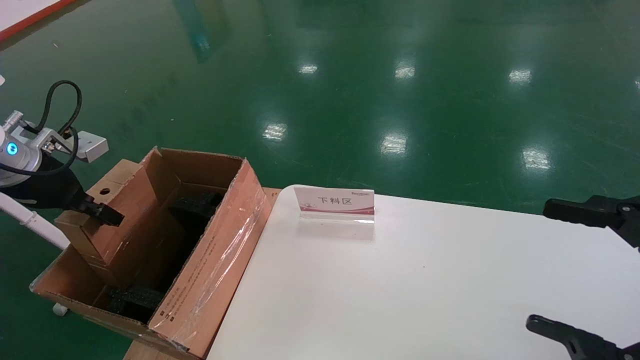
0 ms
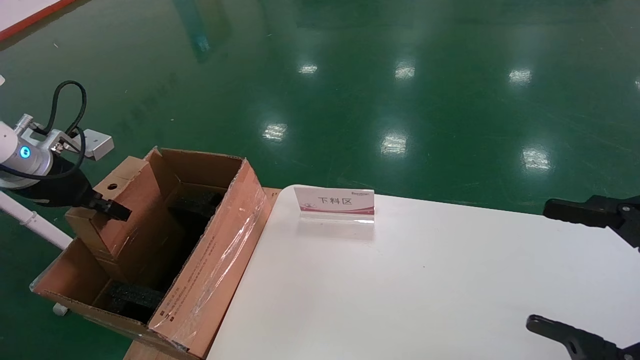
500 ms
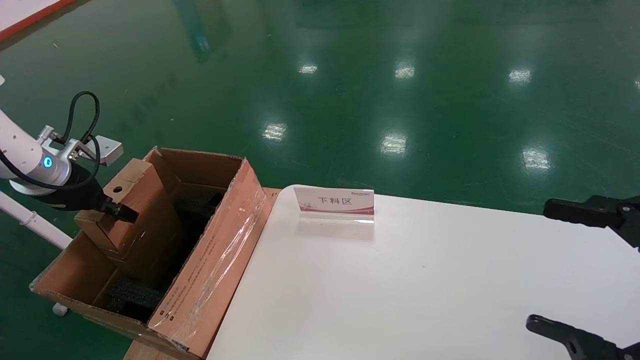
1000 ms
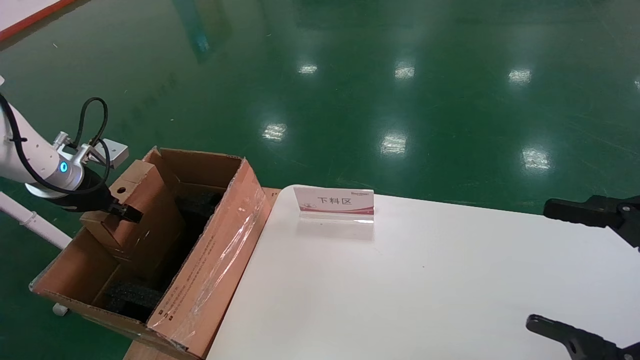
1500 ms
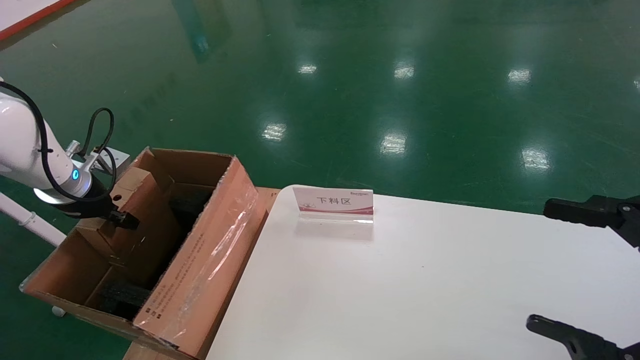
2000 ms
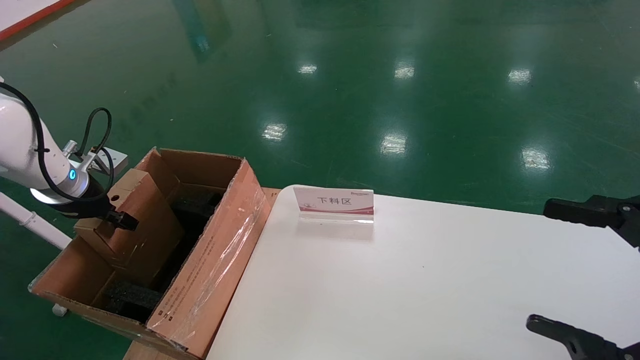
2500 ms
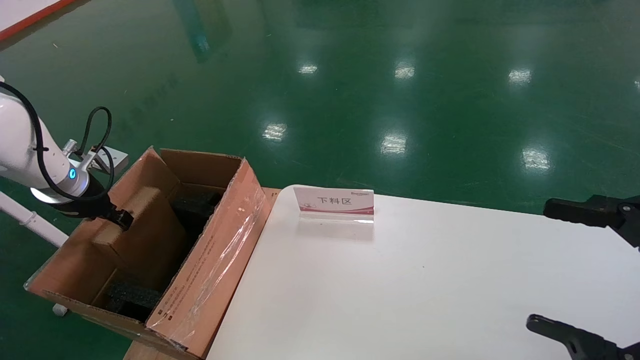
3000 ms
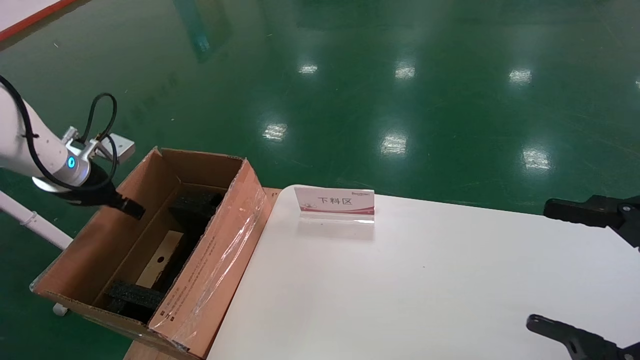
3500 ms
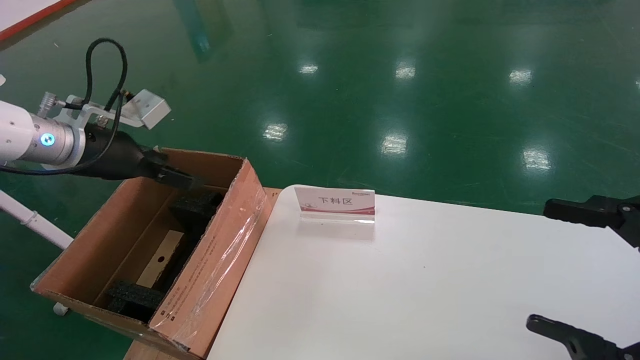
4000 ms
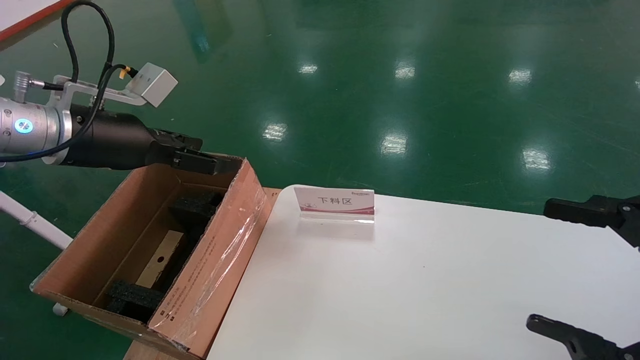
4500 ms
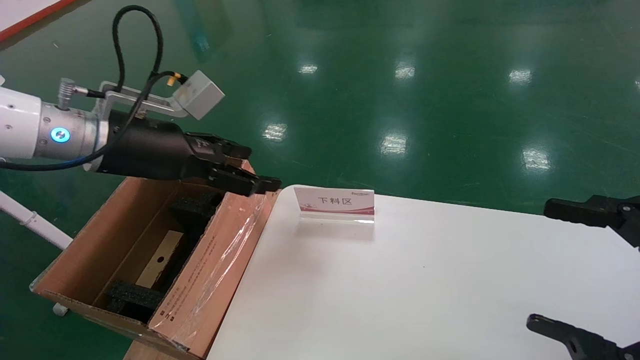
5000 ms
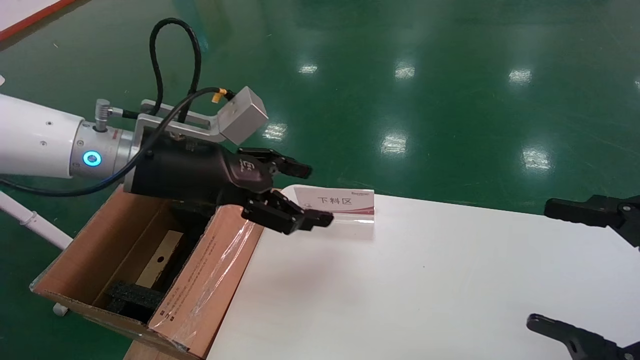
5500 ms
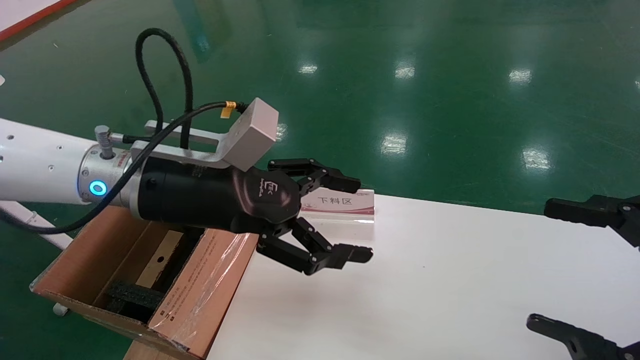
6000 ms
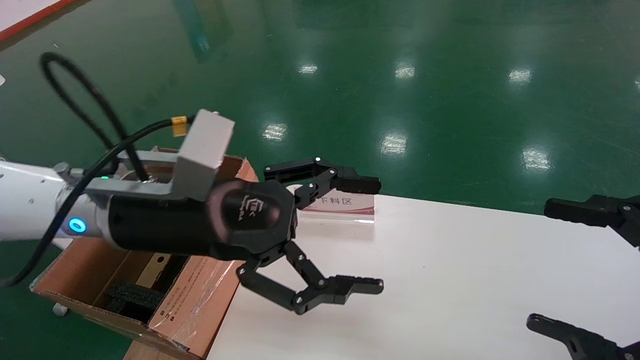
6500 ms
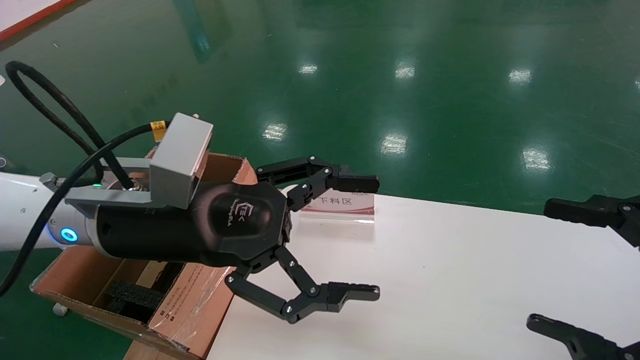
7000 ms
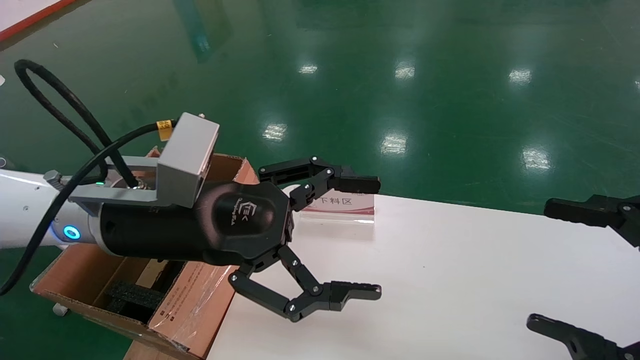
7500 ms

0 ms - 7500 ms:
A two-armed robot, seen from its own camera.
Task of the whole recording: pick up the small cardboard box and load it into the large cardboard box.
Step, 0 ms - 3000 ms: Place the mouse and power cord box into the case.
0 ms - 2000 ms: The left gripper heads downward and forward, covering approximately 10 cm.
2000 ms - 4000 ms: The left gripper moves to the right and upward, roughly 10 cm, and opens its fingers.
4000 ms - 5500 ms: The left gripper heads to the right, covering roughly 15 cm.
5500 ms - 7500 ms: The left gripper heads backward, covering approximately 5 cm.
